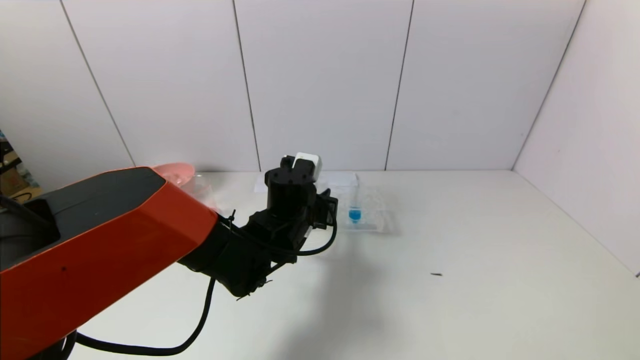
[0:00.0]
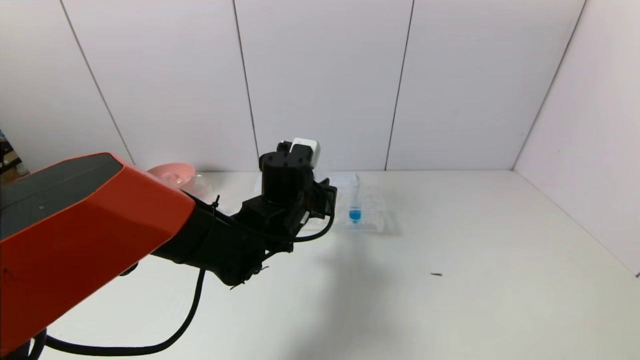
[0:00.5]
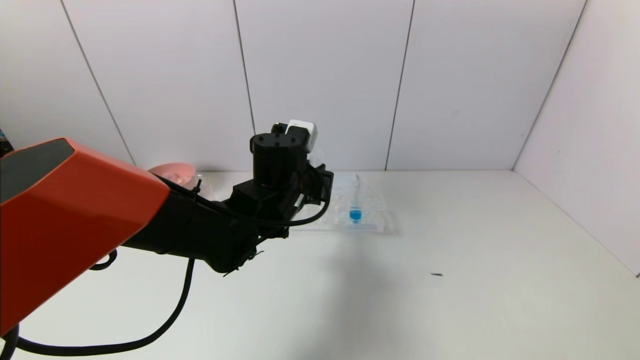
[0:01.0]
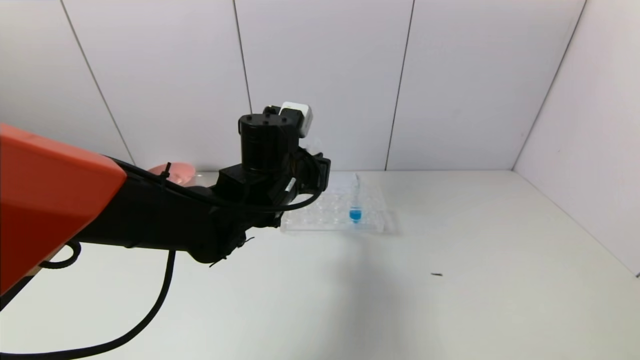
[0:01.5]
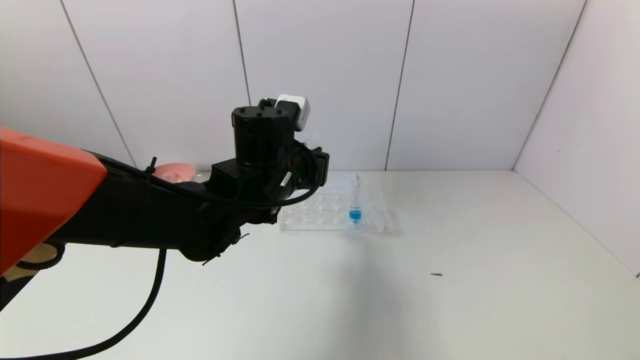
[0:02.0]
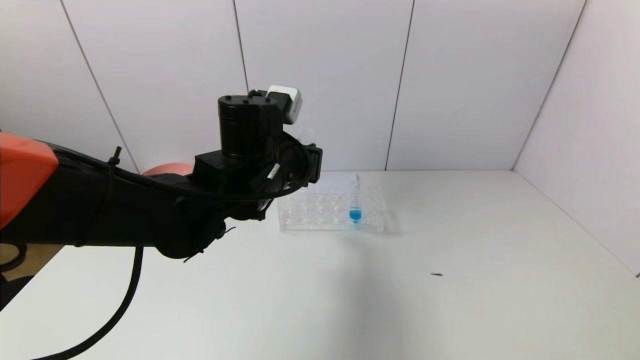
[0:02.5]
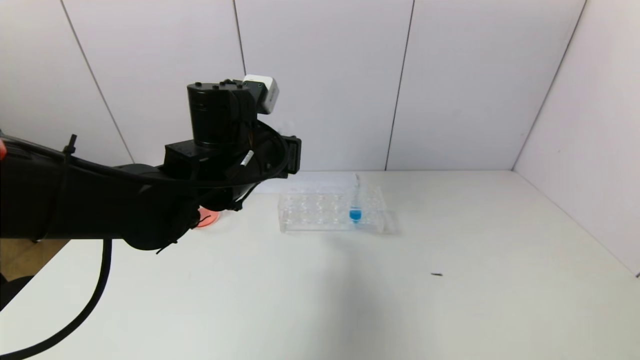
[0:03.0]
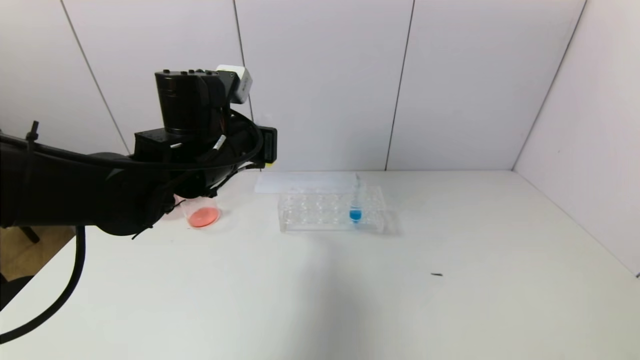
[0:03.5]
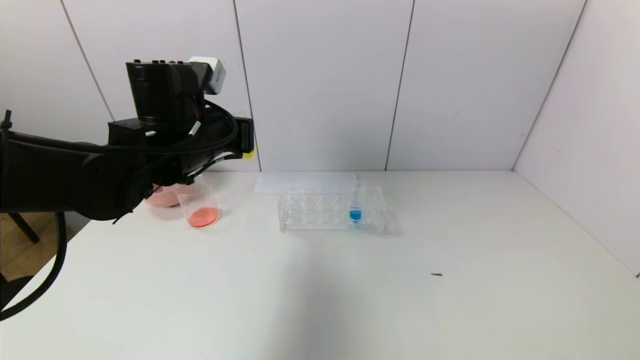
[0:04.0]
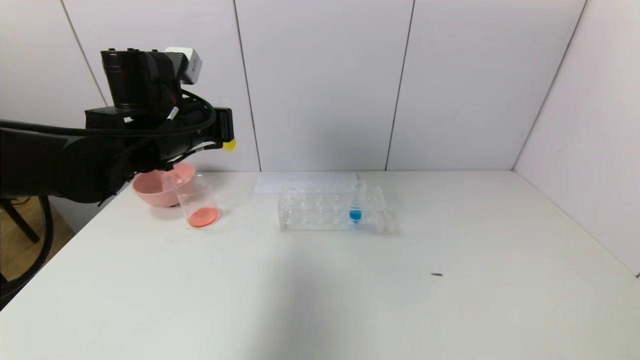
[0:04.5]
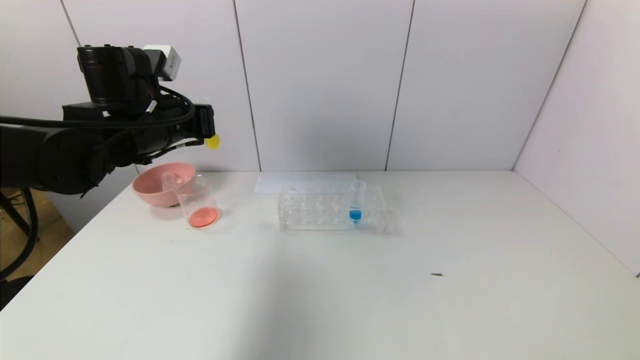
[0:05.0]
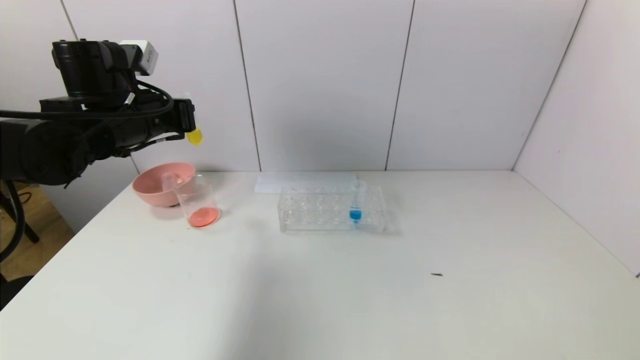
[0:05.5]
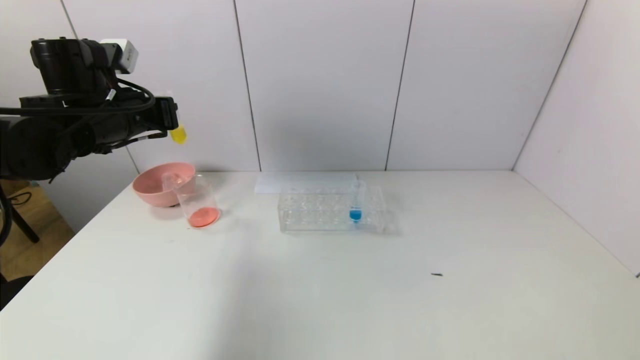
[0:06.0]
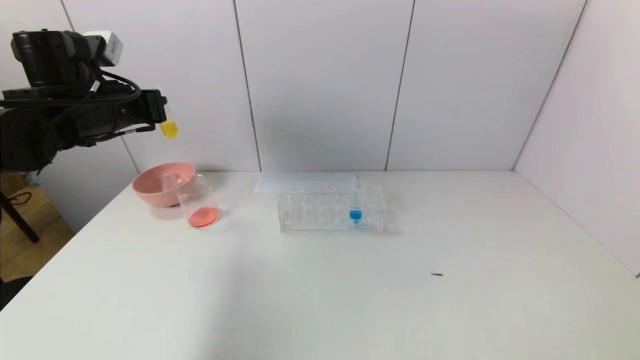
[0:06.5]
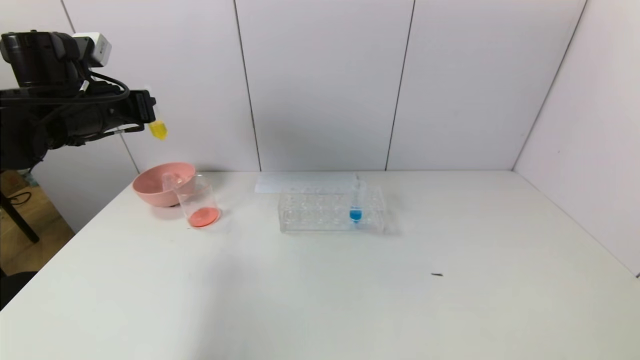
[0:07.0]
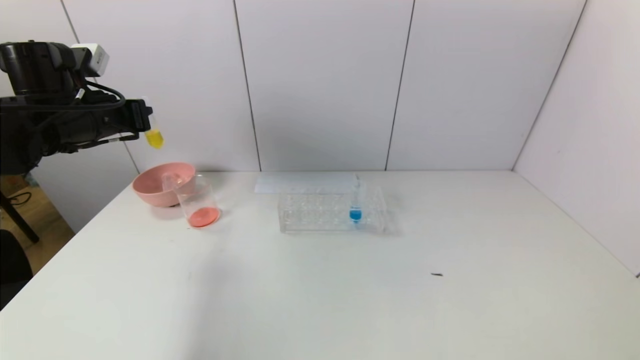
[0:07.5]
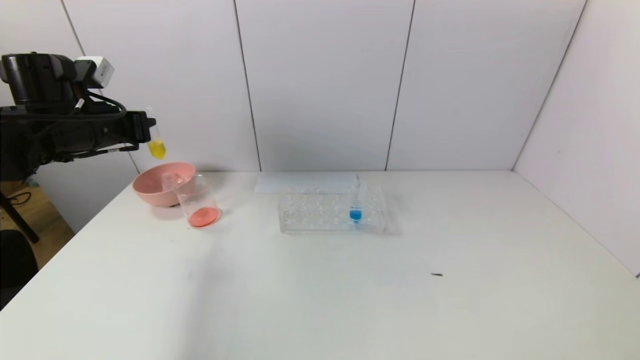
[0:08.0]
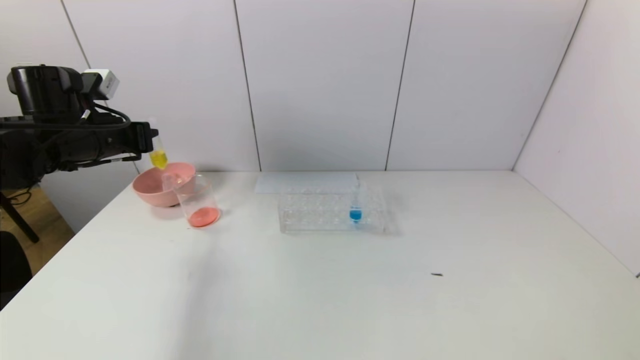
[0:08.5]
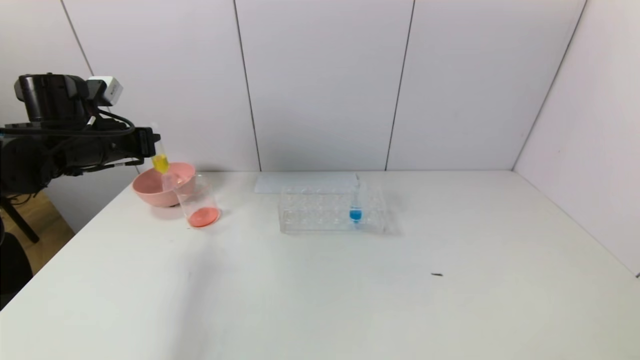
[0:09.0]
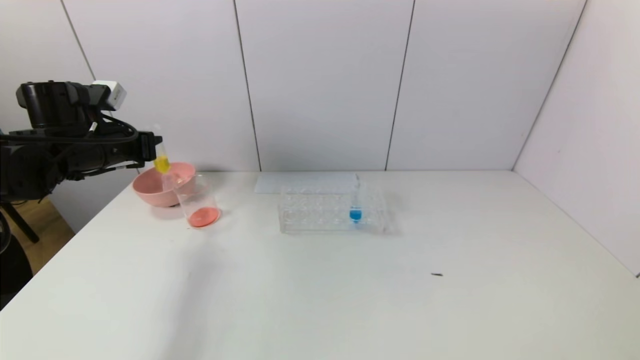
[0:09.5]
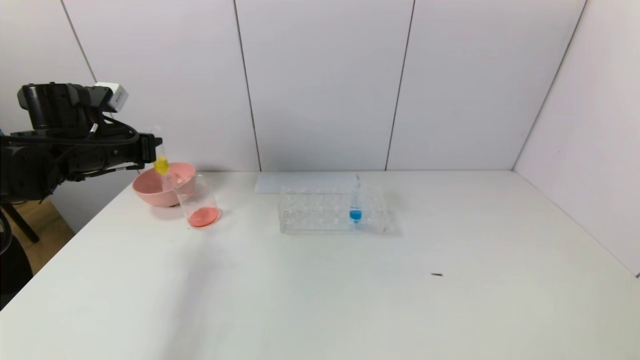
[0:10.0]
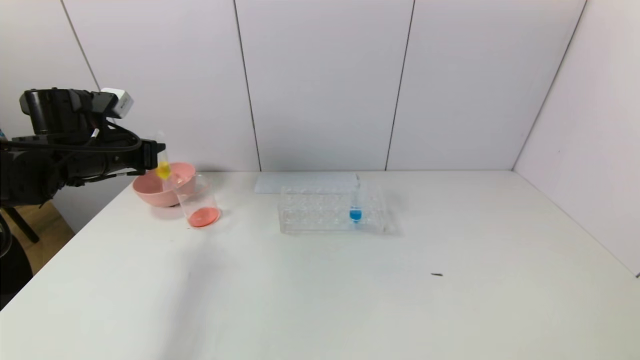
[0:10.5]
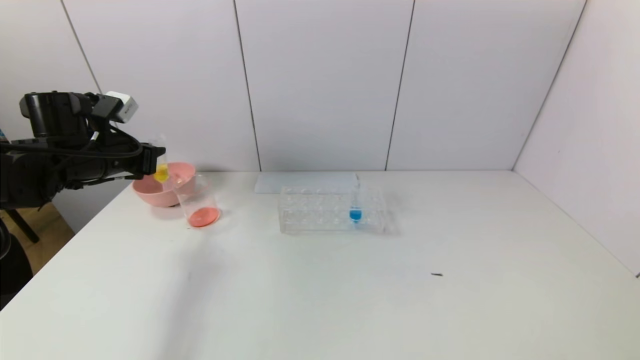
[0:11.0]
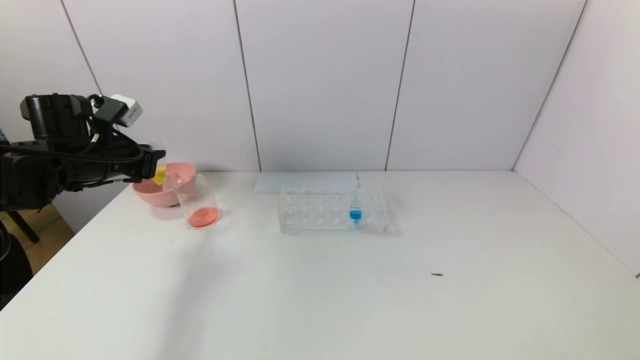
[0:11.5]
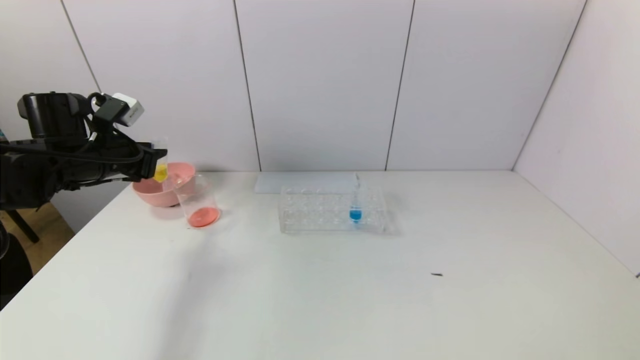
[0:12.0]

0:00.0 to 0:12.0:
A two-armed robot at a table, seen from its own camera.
Task of the whole recording: pick up the test tube with yellow pigment and the test tube with red pigment by grippers and pour them into the beaker.
0:00.0 to 0:02.0: The left gripper is displaced upward by approximately 10 cm.
0:02.0 to 0:04.0: The left gripper heads to the left, covering approximately 10 cm.
0:04.0 to 0:06.0: The left gripper is displaced to the left by approximately 10 cm.
0:06.0 to 0:08.0: The left gripper heads to the left, covering approximately 5 cm.
0:08.0 to 0:12.0: The grippers make only small movements.

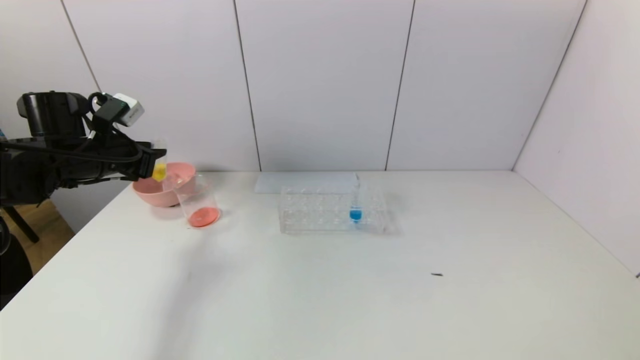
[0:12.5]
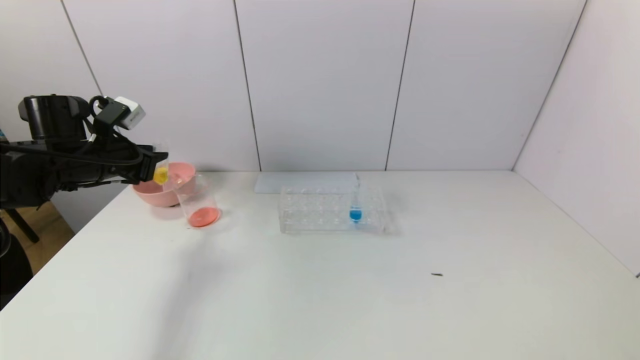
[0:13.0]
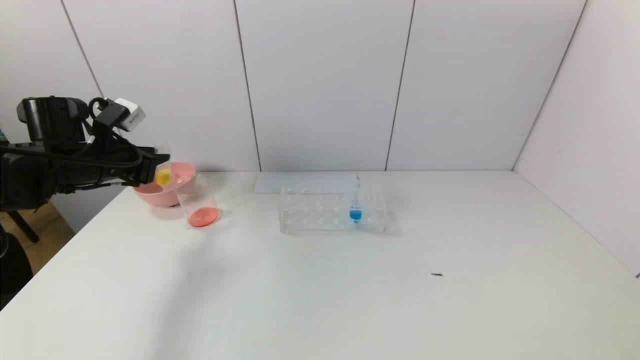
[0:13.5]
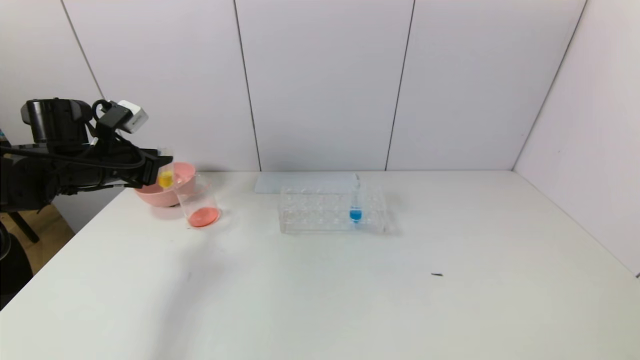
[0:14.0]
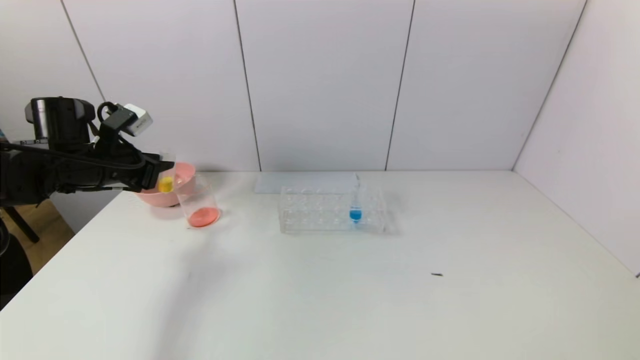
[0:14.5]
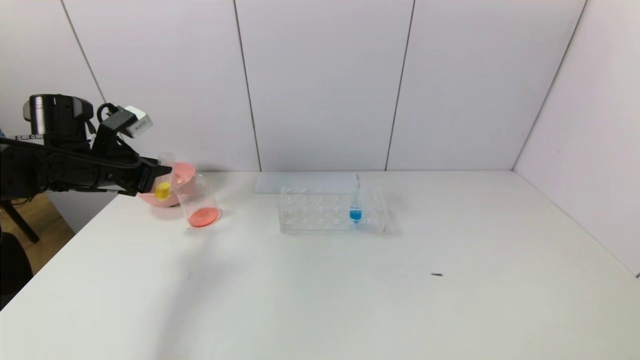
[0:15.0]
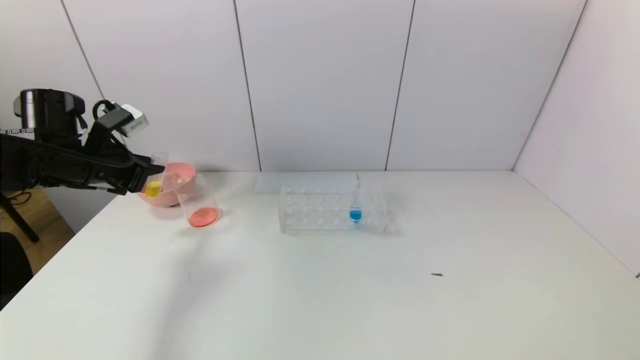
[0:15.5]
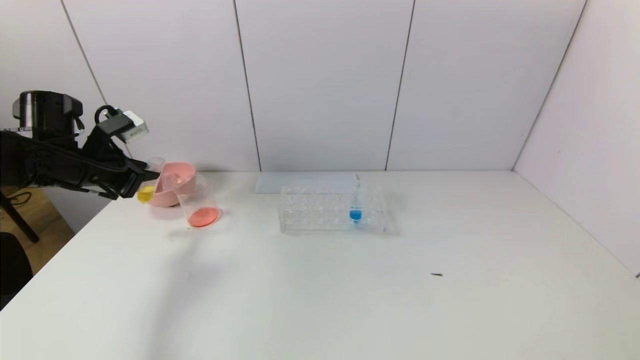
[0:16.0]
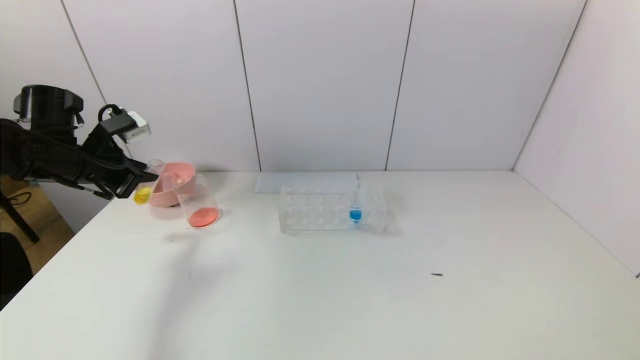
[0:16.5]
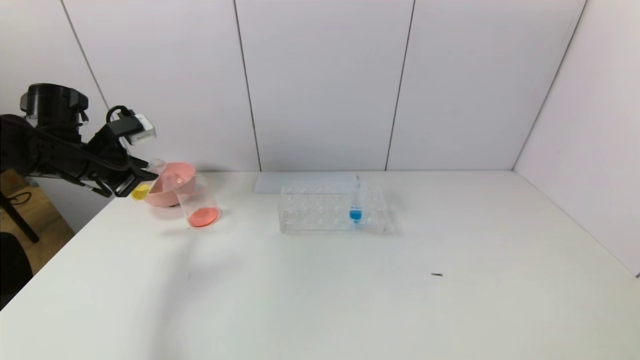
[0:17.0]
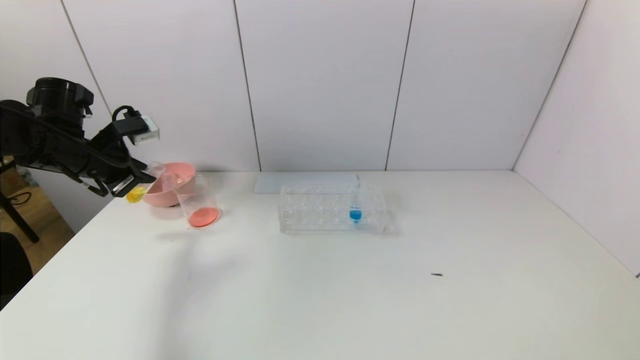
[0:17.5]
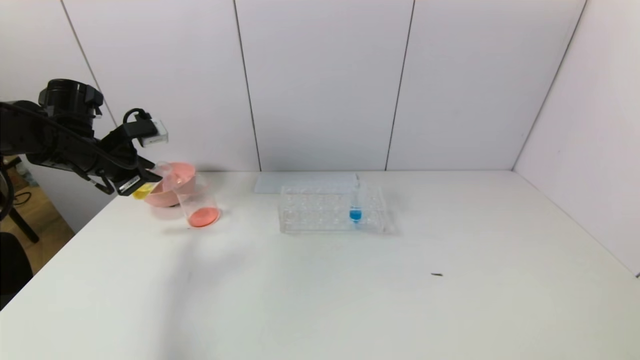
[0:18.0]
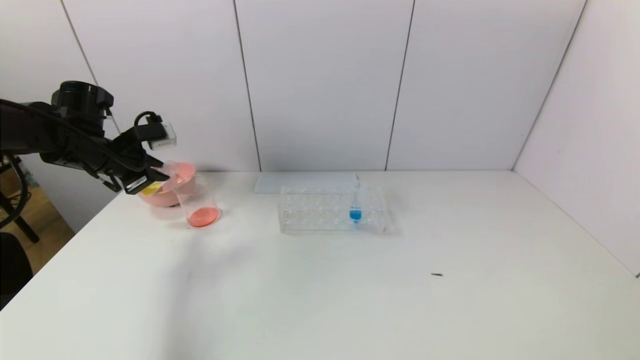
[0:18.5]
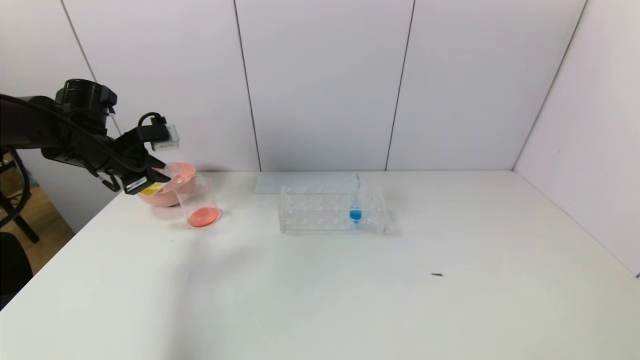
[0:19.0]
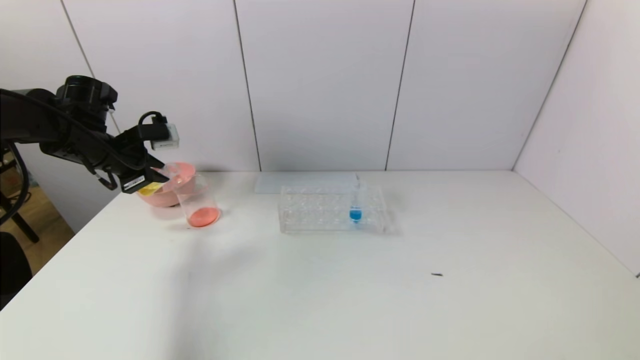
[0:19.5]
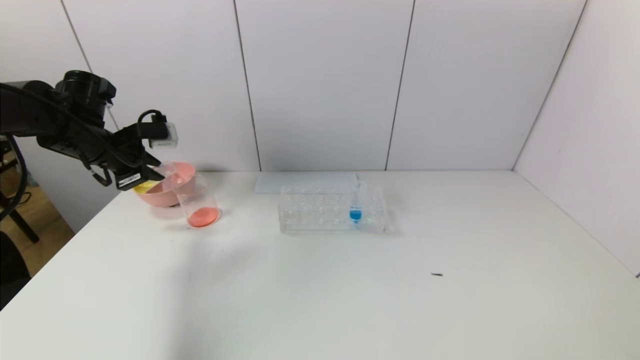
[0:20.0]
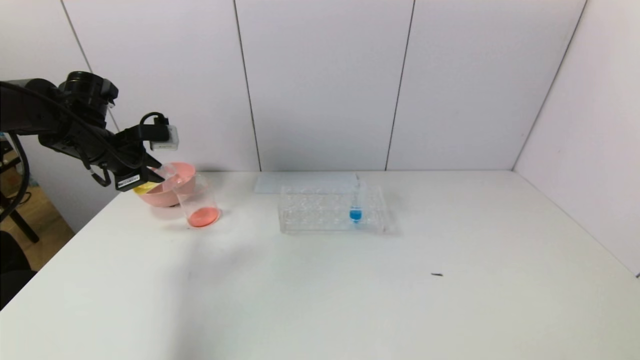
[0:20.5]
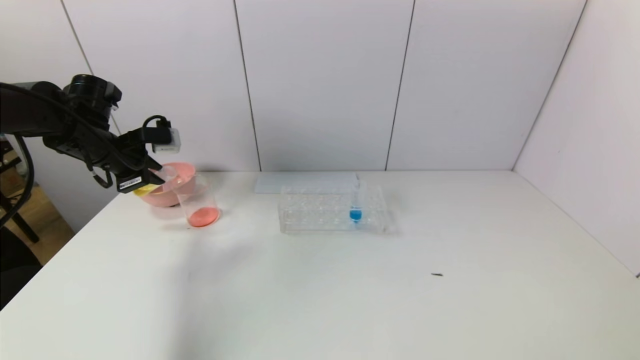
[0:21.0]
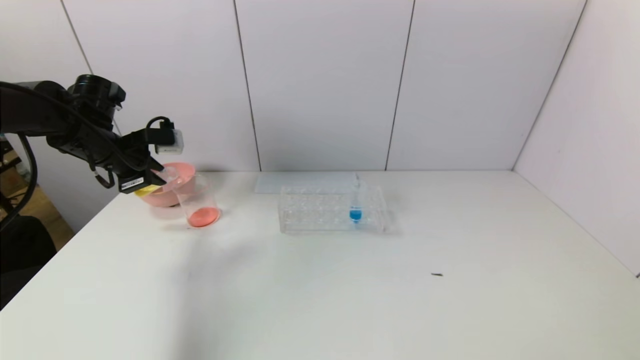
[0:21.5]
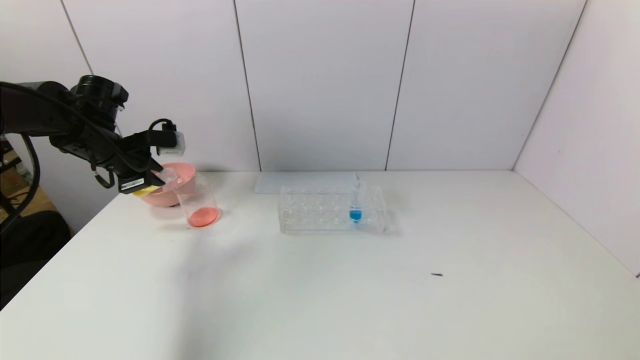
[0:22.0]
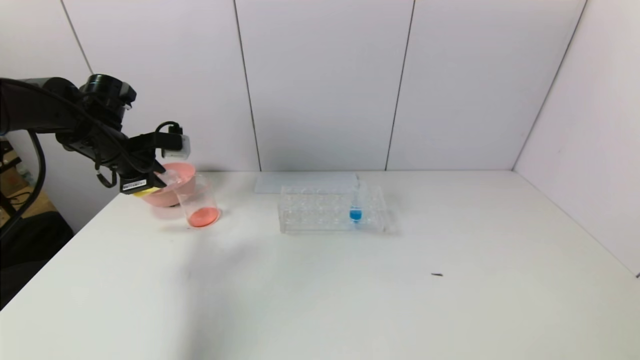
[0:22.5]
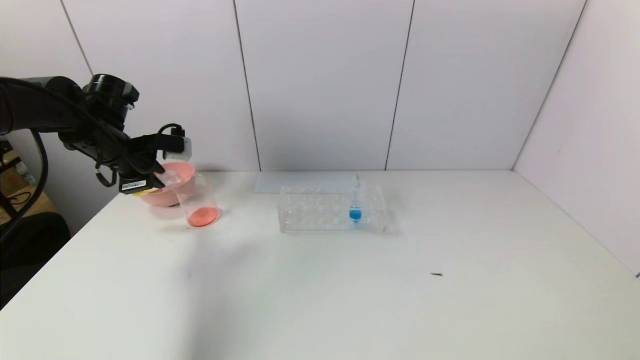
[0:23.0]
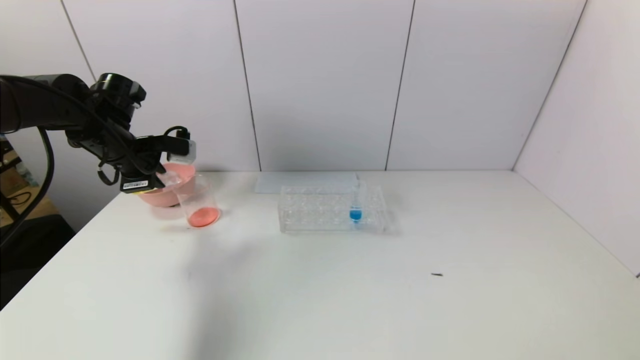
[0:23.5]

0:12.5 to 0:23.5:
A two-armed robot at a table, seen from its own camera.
Task of the whole recording: pick up the test tube with yellow pigment and the test tube with red pigment by grippers and pour them into the beaker.
0:12.5 to 0:16.0: The grippers stay close to where they were, moving slightly.
0:16.0 to 0:18.0: The grippers make only small movements.
0:18.0 to 0:20.0: The grippers make only small movements.
0:20.0 to 0:21.5: Both grippers stay put.
0:21.5 to 0:23.5: The grippers move only a little.
